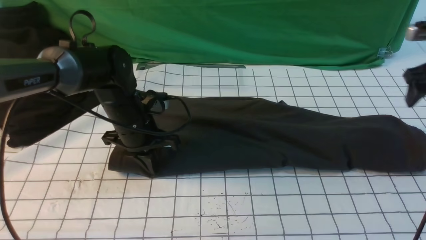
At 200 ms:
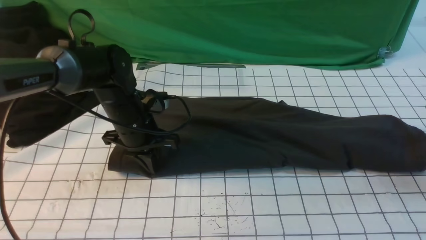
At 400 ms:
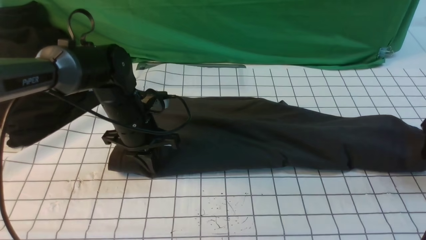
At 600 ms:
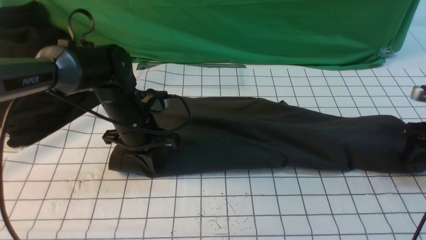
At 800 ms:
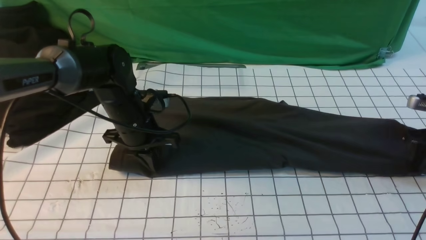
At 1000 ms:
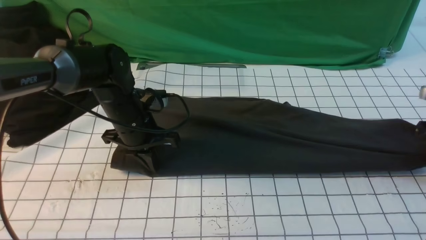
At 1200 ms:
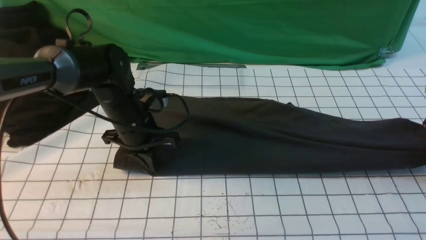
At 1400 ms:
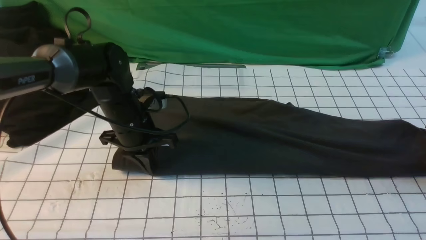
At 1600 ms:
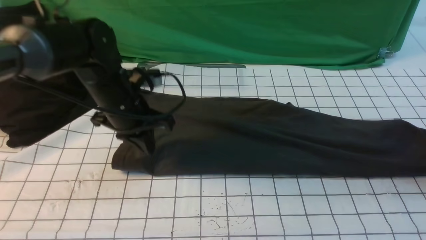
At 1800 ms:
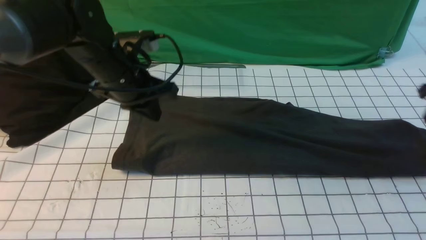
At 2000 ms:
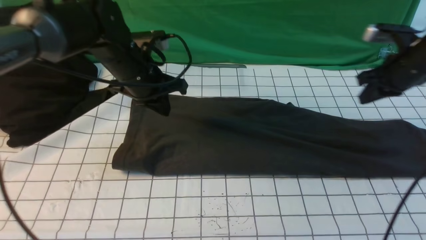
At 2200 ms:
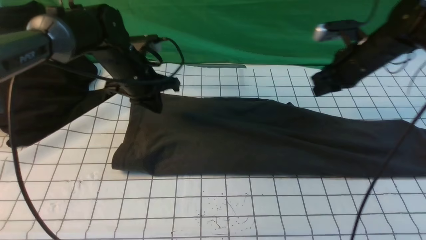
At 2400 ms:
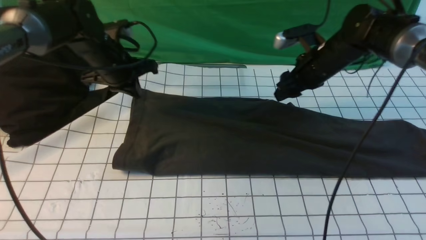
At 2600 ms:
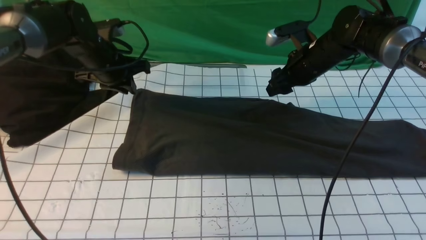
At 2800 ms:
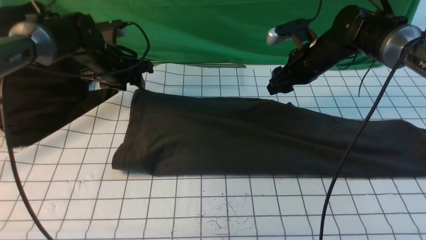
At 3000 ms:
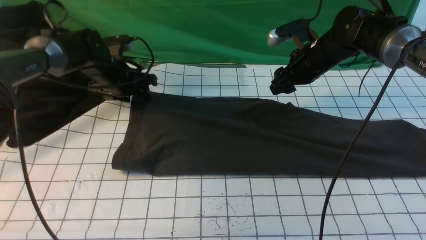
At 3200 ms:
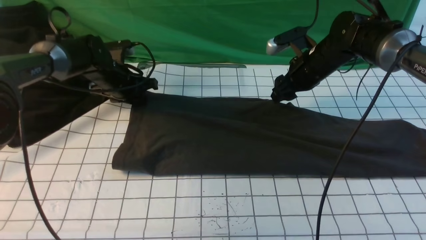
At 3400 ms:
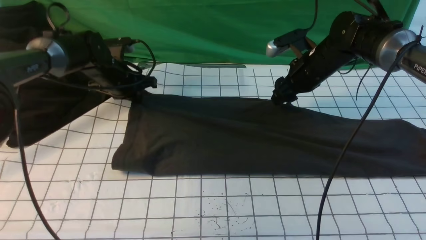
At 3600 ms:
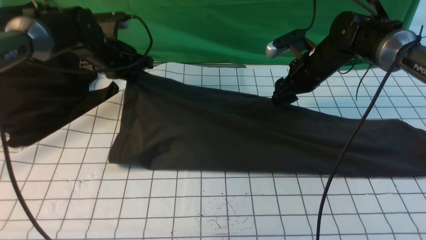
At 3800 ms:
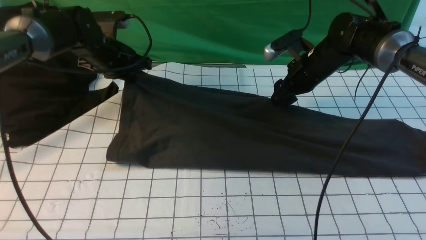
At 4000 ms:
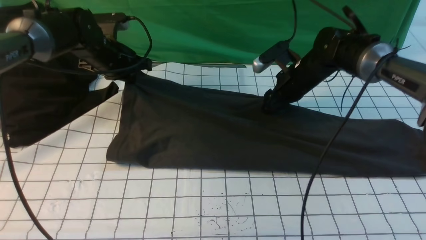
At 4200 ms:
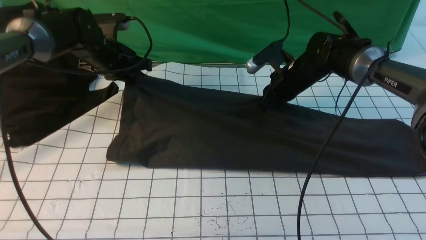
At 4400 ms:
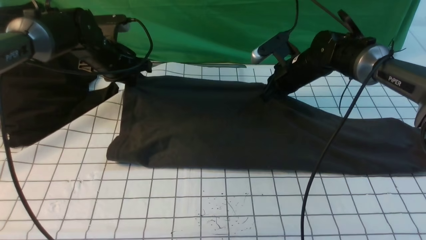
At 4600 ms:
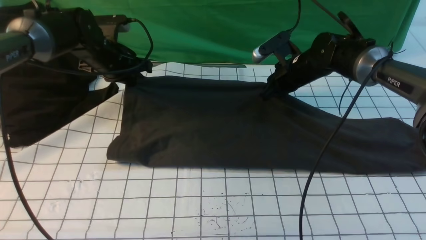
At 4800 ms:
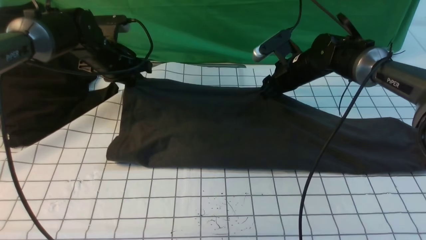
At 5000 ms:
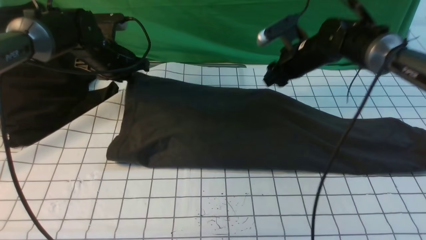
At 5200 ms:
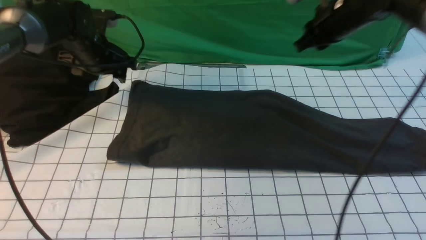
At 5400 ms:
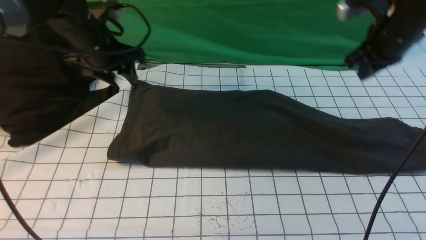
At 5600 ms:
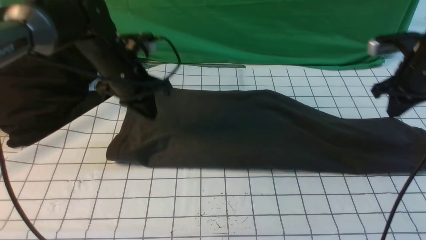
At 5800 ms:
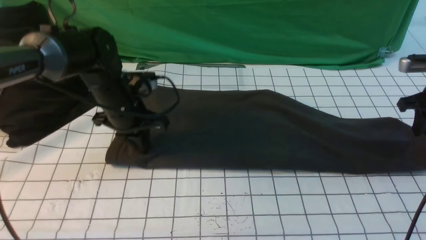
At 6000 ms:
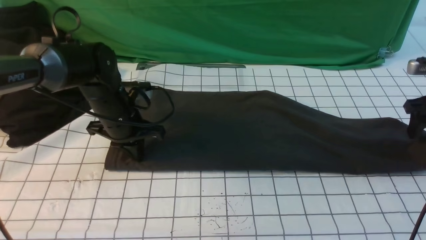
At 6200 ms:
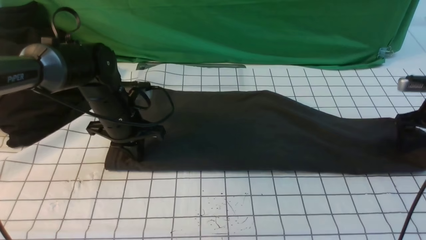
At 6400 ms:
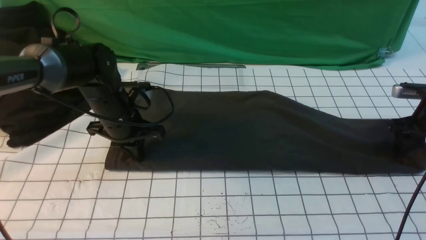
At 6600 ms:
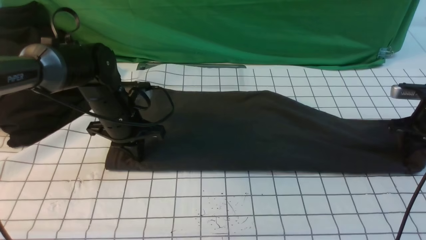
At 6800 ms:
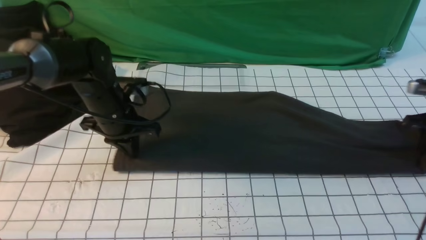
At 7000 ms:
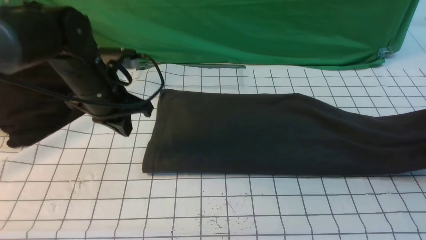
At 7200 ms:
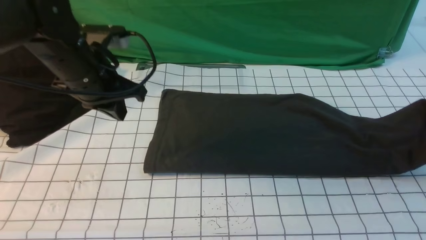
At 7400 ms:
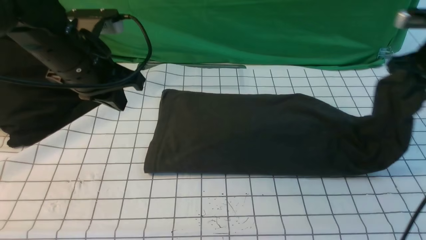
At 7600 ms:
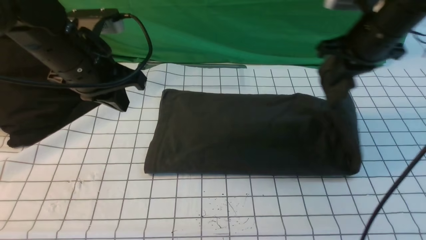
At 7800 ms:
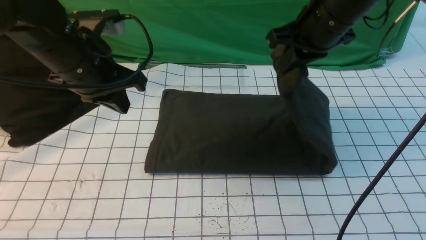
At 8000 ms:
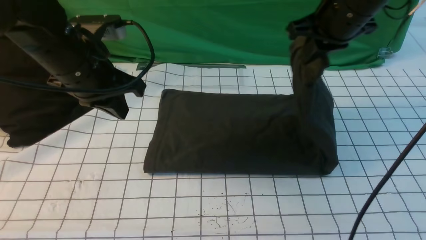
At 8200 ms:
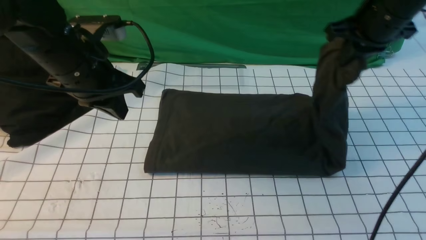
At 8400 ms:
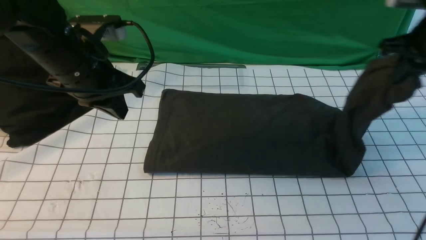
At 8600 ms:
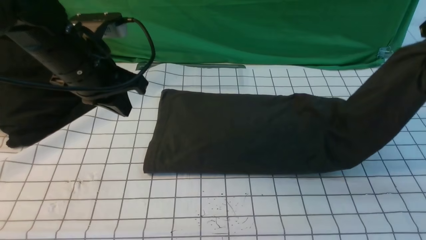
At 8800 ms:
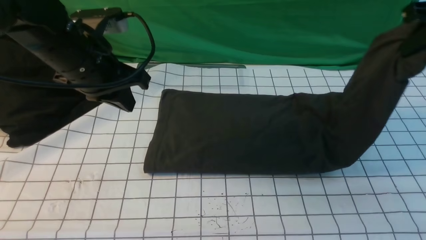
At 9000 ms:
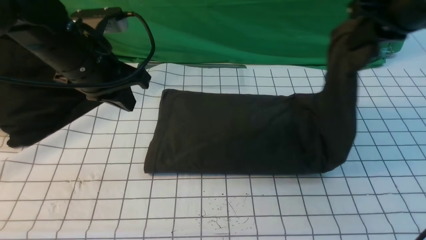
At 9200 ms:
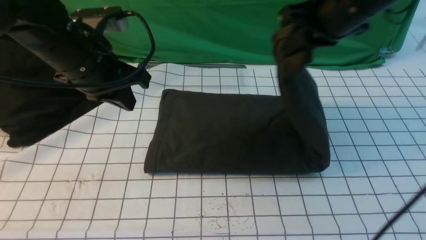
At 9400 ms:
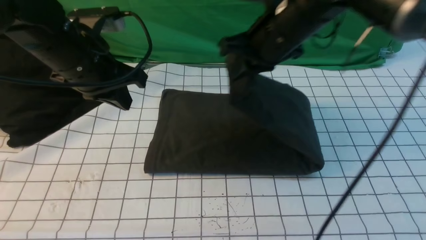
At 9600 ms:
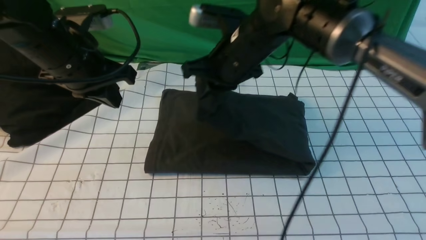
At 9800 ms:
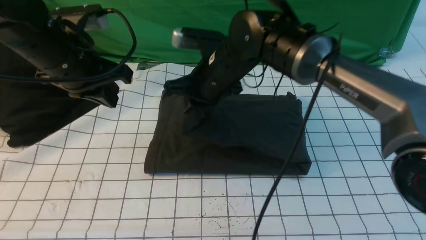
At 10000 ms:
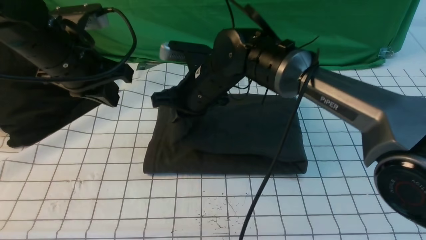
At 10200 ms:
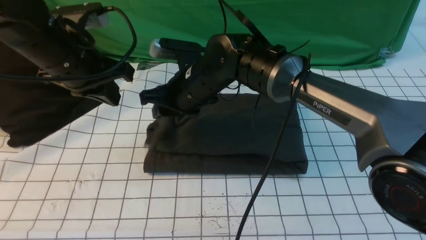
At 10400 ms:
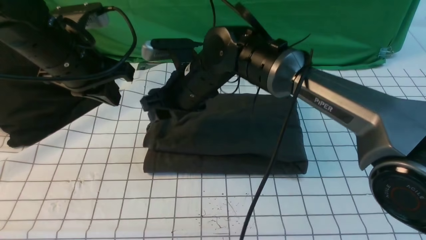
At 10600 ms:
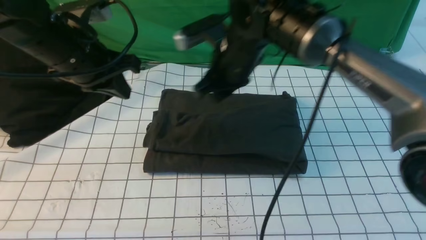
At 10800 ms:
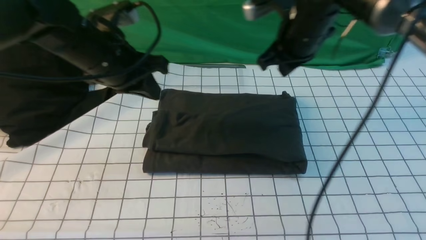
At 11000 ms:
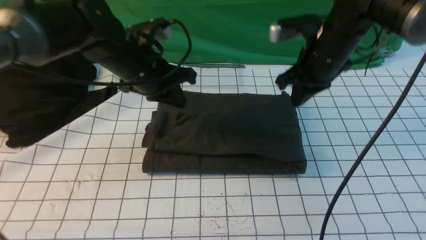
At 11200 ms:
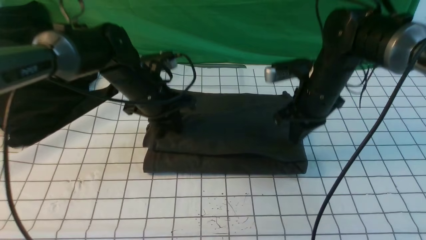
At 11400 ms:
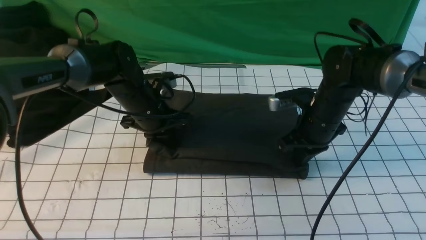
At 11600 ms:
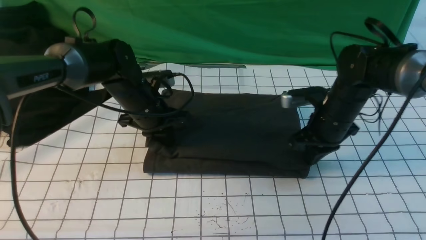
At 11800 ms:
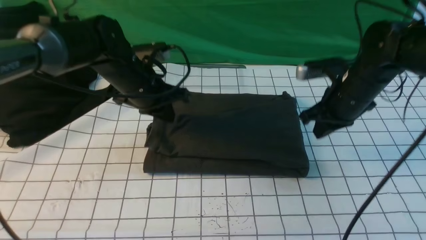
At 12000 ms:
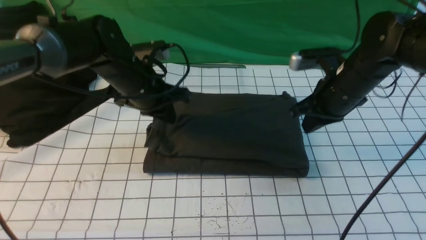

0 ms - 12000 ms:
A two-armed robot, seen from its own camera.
Step, 0 ms - 6600 ms: use the right arm to clamp the right edge of the fabric.
Step, 6800 ms - 10200 ms: use the right arm to drag the right edge of the fabric to the left and folds it over the left edge.
0 ms - 1600 ms: The left gripper travels upward by about 5 cm; the right gripper goes downward and returns, approximately 10 cm each way, and closes, then opens again.
1600 ms - 3000 ms: The right gripper is displaced to the left by some 25 cm, and closes and opens again. The left gripper shifts some 15 cm forward, to the left and downward, and opens.
3000 ms - 4400 ms: The right gripper closes up; the left gripper closes.
4400 ms - 6000 ms: The right gripper shifts approximately 25 cm to the right, and opens its fingers, while the left gripper goes about 10 cm backward, and opens, then closes once more.
6000 ms - 7600 ms: The left gripper travels upward by about 15 cm. Meanwhile the right gripper heads to the left and upward, covering approximately 20 cm, and closes its fingers.
7600 ms - 9000 ms: The right gripper swings left and right, approximately 15 cm each way, with 2 reversals.
9000 ms - 10400 ms: The right gripper goes approximately 25 cm to the left and downward, and opens up.
10400 ms - 12000 ms: The right gripper heads to the right, covering about 20 cm, and closes its fingers. Meanwhile the left gripper moves downward, to the right and forward, about 15 cm.

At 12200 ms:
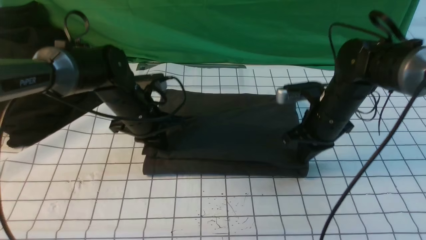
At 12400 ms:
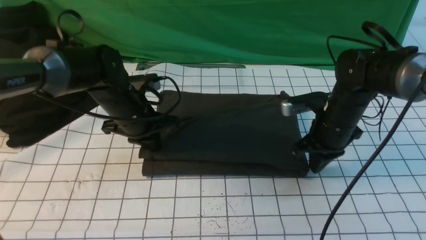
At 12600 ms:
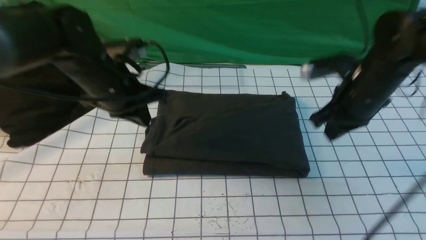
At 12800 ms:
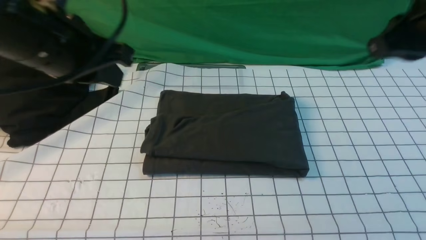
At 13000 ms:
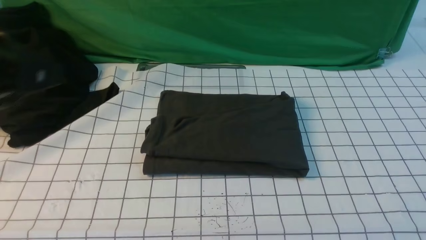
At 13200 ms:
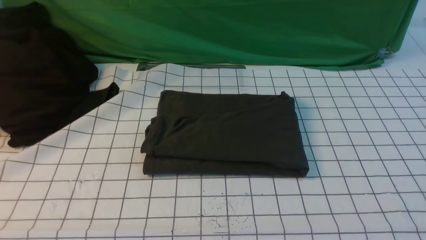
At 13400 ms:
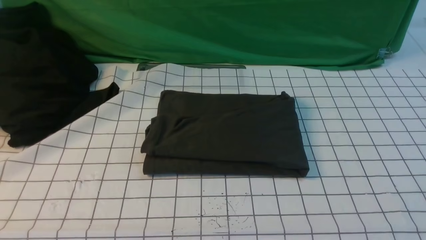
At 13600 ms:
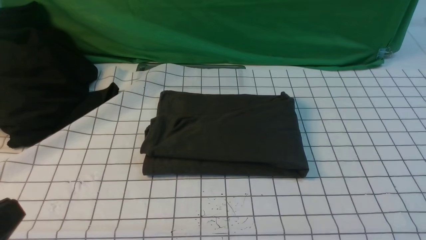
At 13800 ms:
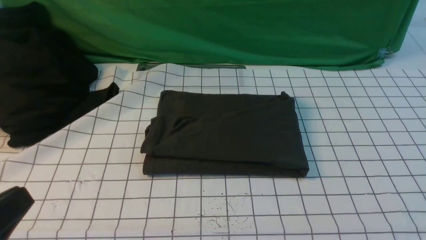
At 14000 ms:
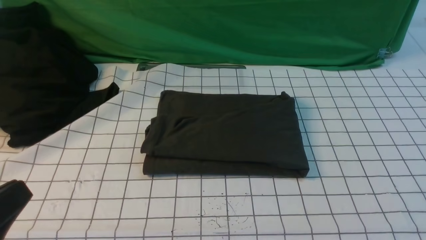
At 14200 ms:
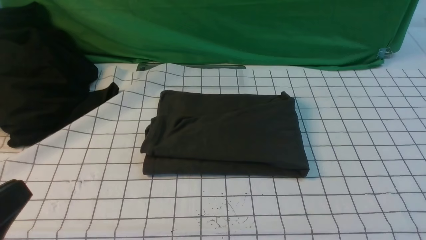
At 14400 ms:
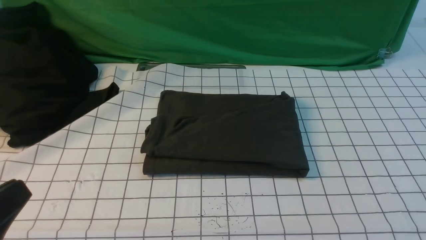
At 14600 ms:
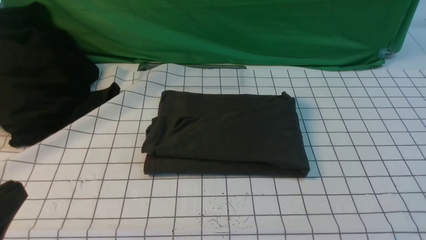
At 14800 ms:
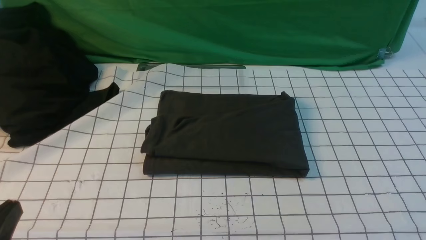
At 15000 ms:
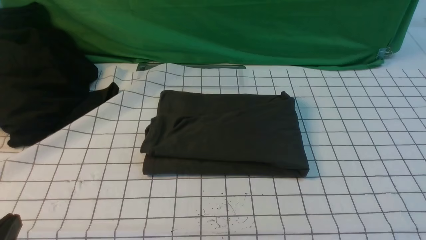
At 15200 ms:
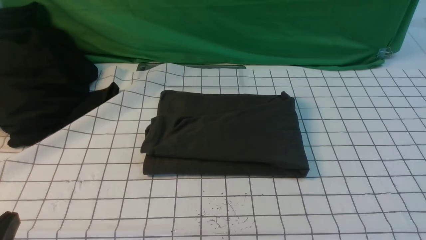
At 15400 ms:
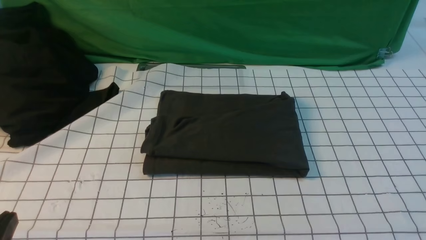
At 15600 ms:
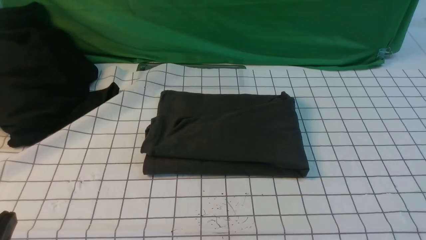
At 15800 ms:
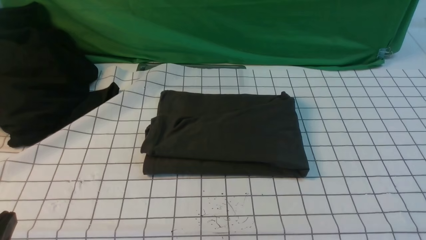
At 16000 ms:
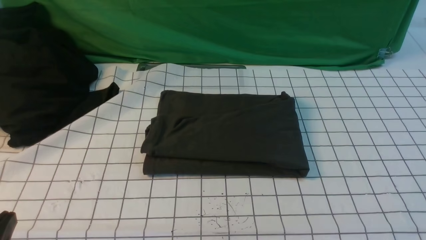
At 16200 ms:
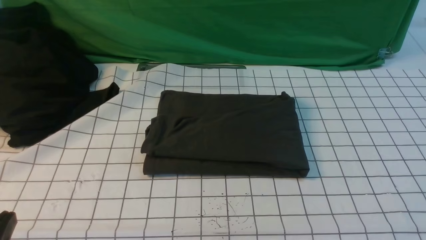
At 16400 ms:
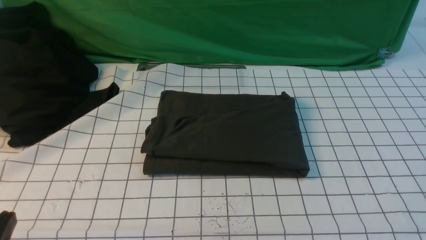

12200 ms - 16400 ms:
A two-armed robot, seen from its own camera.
12200 ms - 13600 ms: The grippers both shift backward by about 35 cm.
13600 ms - 15000 ms: The left gripper travels downward by roughly 10 cm.
